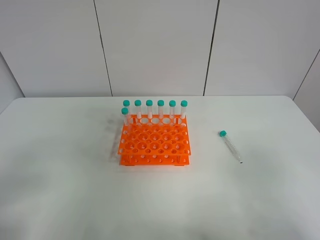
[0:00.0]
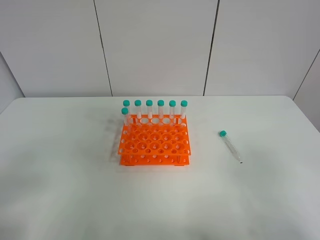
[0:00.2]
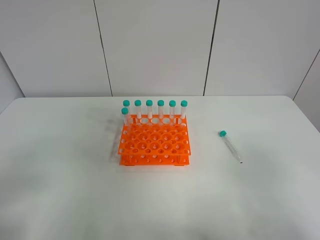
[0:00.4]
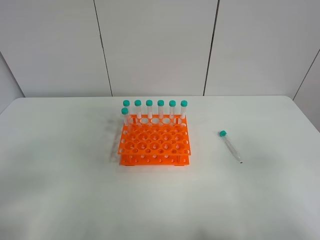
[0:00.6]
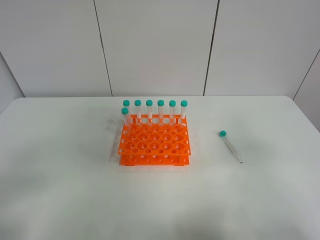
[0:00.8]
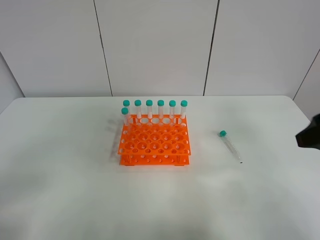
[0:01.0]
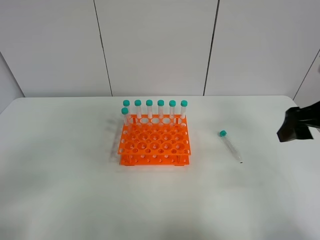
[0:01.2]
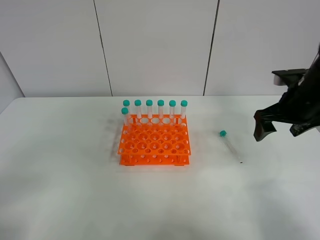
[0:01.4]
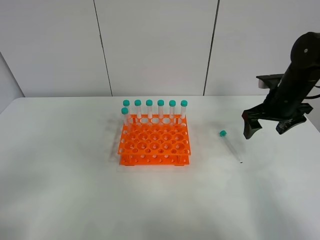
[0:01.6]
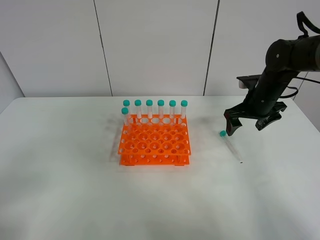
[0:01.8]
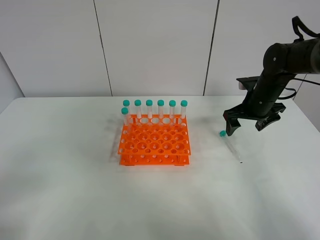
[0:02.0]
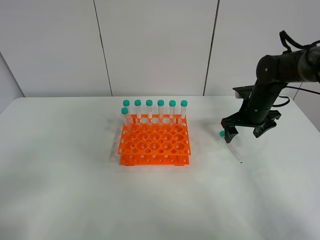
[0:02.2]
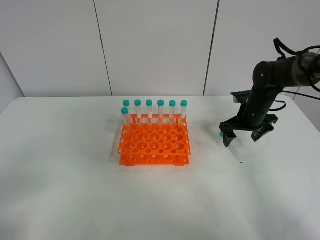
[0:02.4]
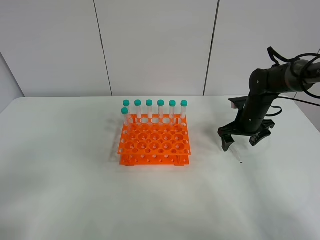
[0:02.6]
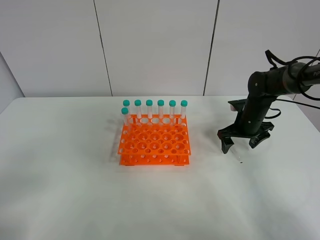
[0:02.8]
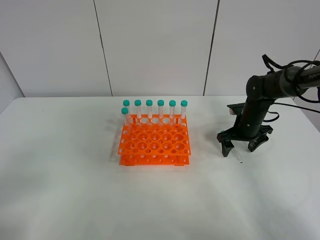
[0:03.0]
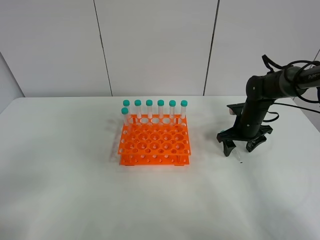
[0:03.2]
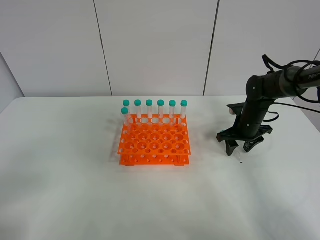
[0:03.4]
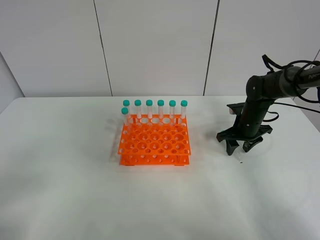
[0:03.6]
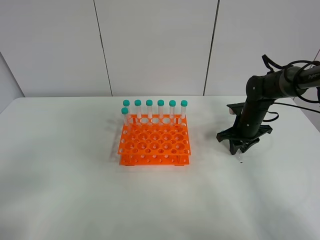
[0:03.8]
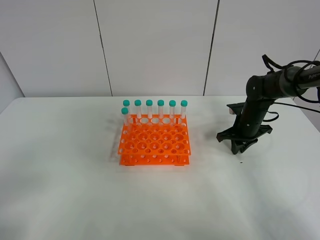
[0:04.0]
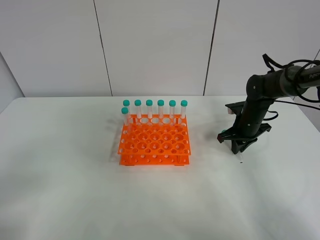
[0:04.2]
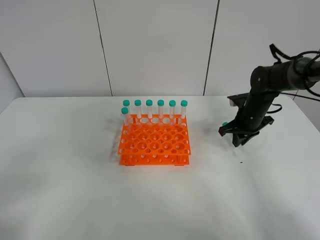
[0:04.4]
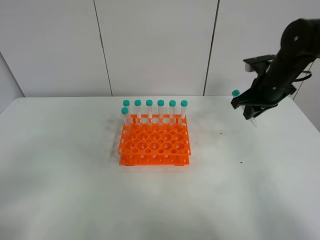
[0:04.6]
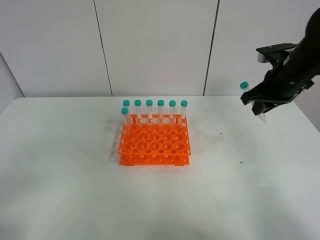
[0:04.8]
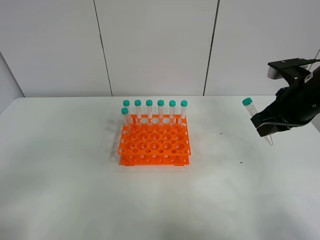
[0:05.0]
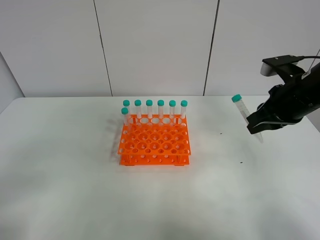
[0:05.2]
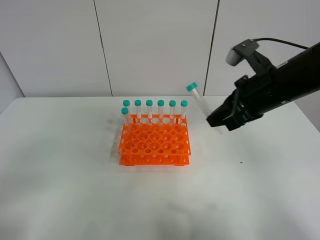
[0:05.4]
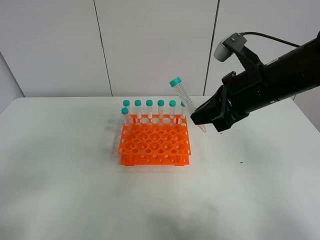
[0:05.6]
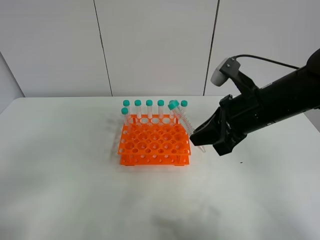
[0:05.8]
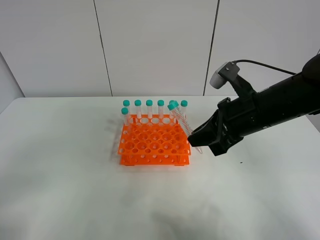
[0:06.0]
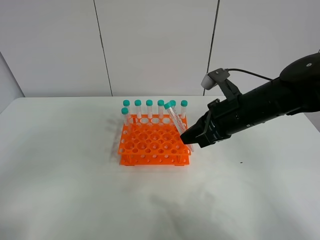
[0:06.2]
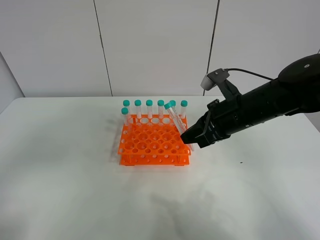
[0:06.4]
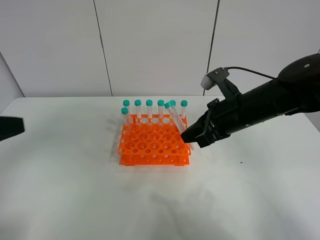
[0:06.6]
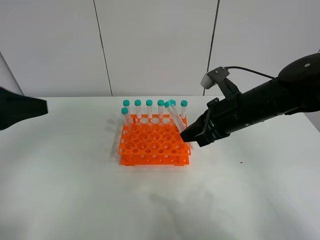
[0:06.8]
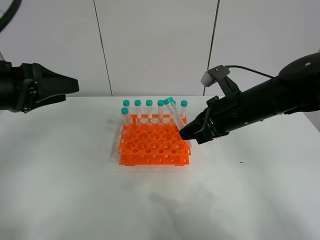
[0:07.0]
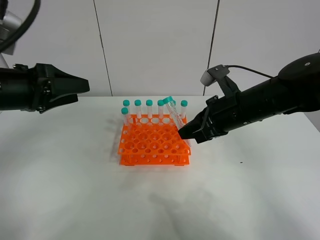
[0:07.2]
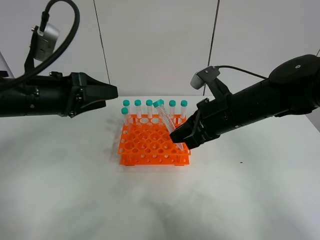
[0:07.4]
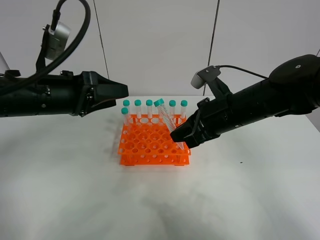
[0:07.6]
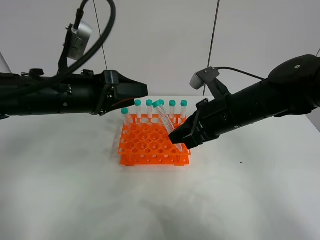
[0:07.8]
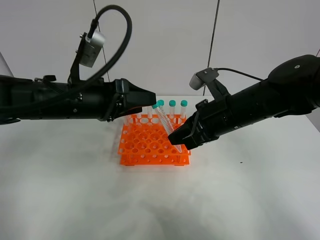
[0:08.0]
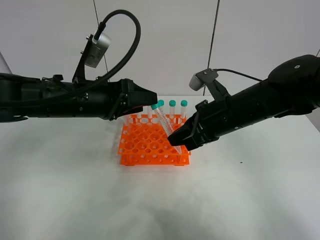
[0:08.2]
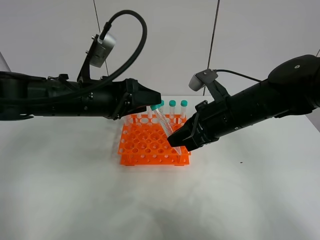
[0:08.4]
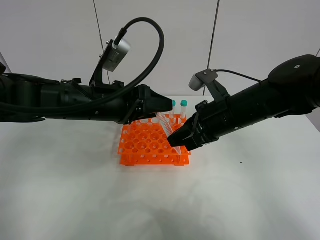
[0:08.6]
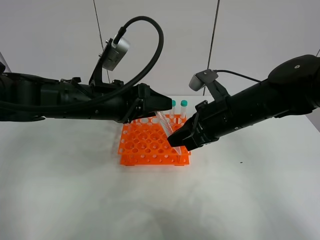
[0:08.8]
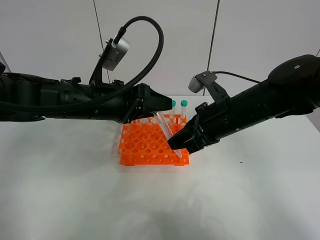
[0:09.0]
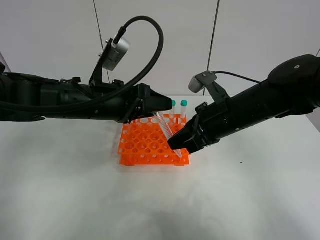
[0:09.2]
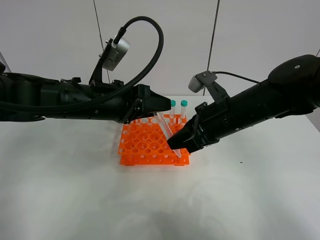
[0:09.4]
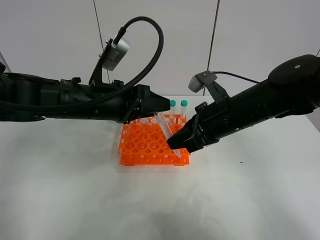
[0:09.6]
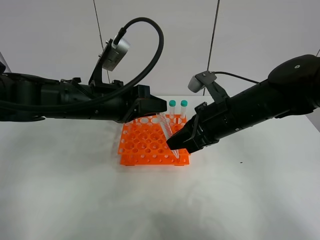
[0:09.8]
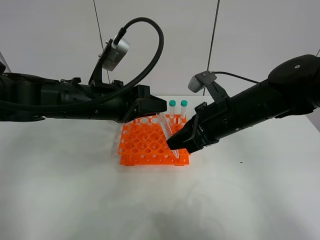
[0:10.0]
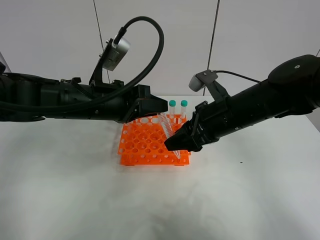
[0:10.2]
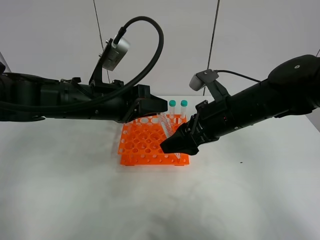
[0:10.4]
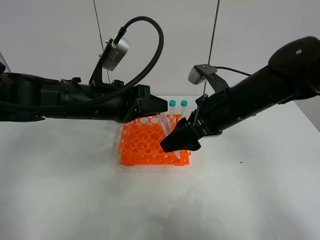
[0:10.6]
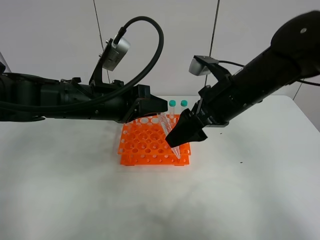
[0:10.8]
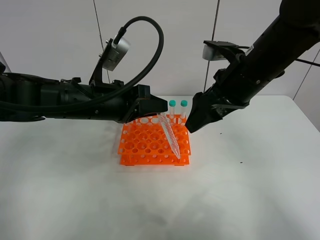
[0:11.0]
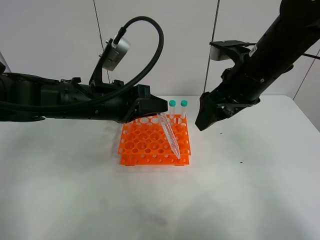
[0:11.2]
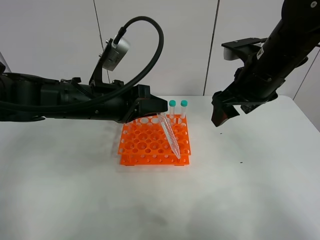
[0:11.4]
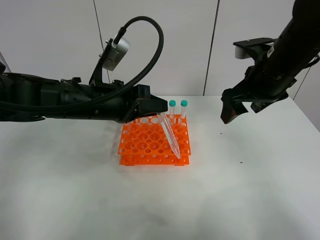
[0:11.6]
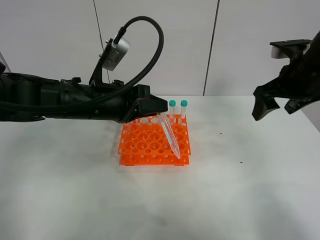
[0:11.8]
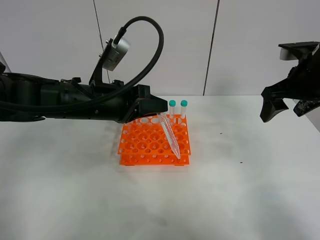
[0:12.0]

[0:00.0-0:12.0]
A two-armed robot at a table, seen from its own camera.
Task of the whole recording: Put the test tube on the table back onto the test tube rack.
Step, 0:00.0 to 0:03.6: Pick up the test tube with the right gripper.
Step, 0:03.8 to 0:09.8: Move the test tube from the right gripper to the left gripper.
0:00.0 to 0:01.6: The right gripper heads forward, covering about 35 cm.
0:01.6 to 0:03.0: The right gripper is displaced downward by approximately 10 cm.
0:03.0 to 0:04.4: The right gripper closes its fingers.
0:04.4 to 0:06.0: The right gripper shifts about 20 cm backward, upward and to the left.
0:06.0 to 0:07.6: The left gripper shifts roughly 30 cm forward and to the right.
0:07.6 to 0:09.0: The left gripper heads to the right, covering approximately 5 cm.
0:09.0 to 0:10.4: The left gripper closes up. The right gripper opens up.
0:10.4 to 0:12.0: The right gripper travels to the right and upward by approximately 15 cm.

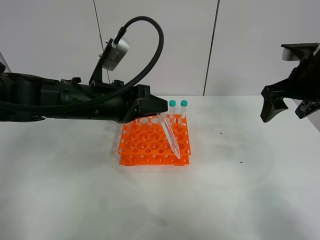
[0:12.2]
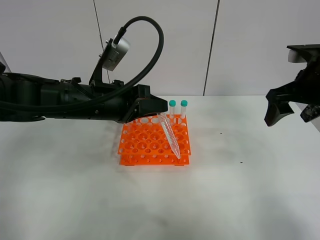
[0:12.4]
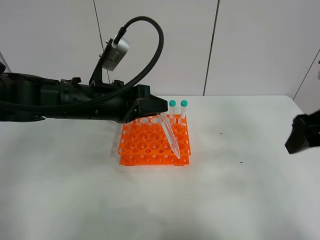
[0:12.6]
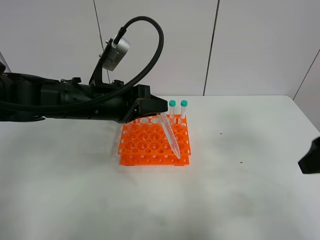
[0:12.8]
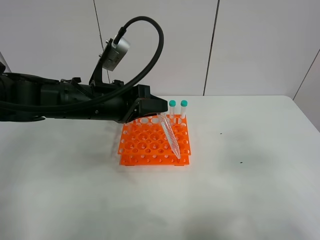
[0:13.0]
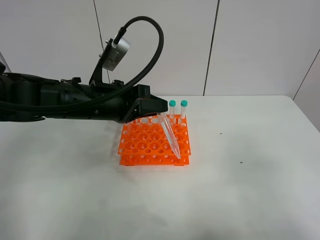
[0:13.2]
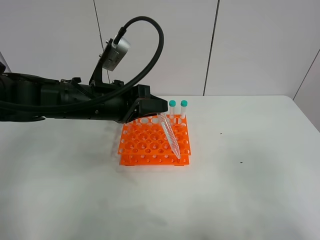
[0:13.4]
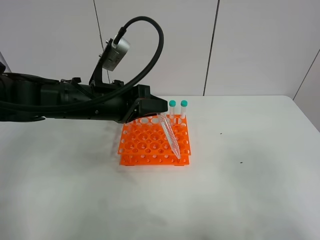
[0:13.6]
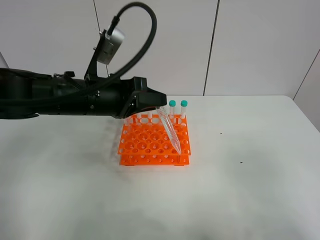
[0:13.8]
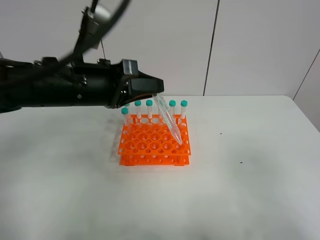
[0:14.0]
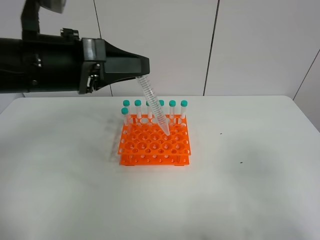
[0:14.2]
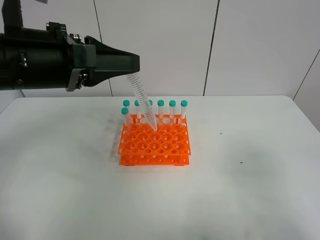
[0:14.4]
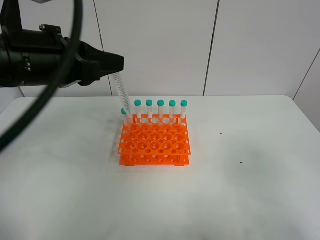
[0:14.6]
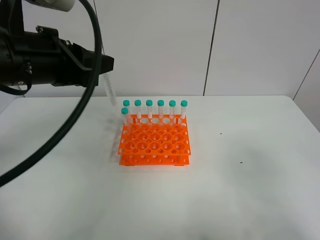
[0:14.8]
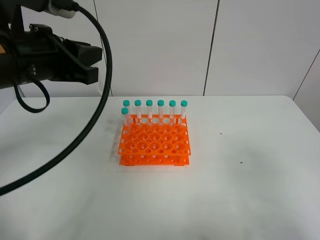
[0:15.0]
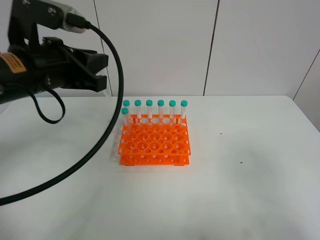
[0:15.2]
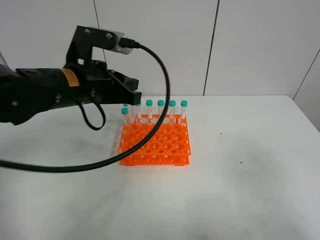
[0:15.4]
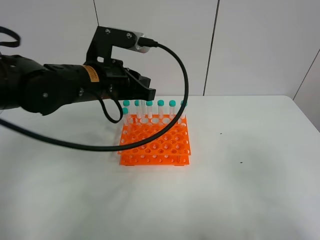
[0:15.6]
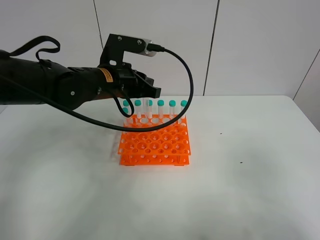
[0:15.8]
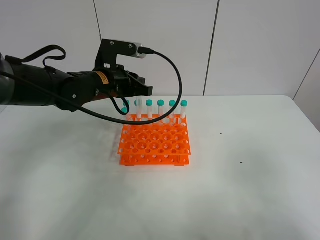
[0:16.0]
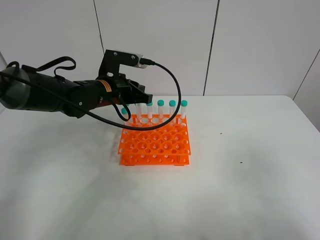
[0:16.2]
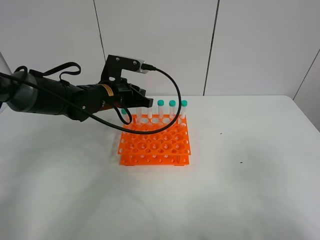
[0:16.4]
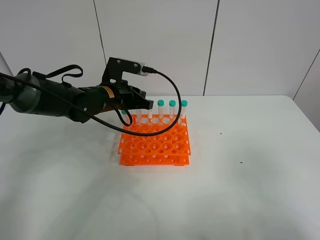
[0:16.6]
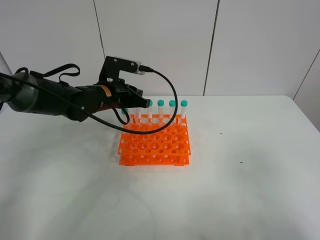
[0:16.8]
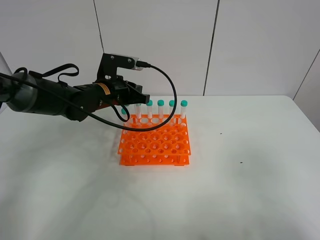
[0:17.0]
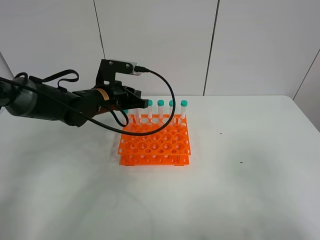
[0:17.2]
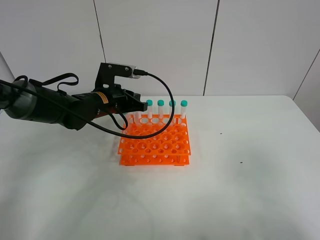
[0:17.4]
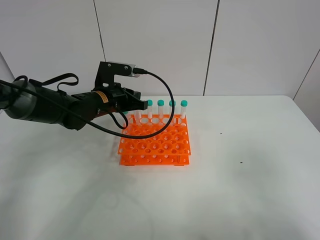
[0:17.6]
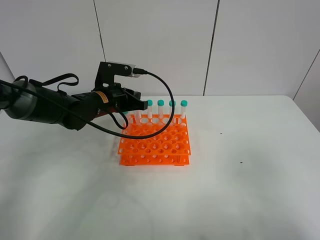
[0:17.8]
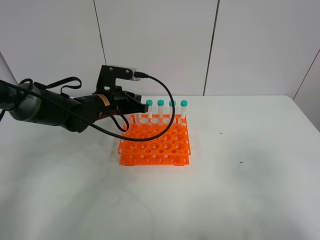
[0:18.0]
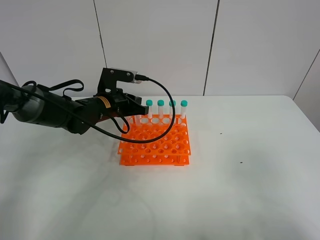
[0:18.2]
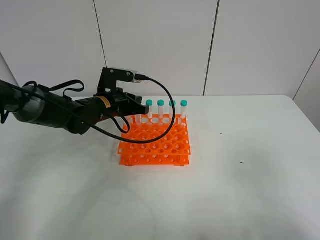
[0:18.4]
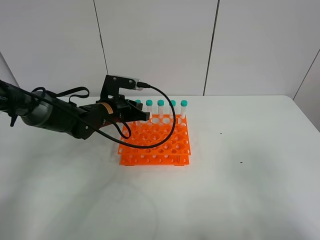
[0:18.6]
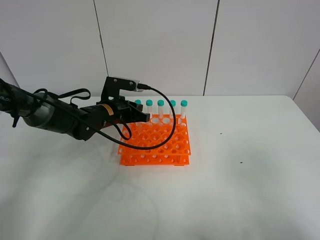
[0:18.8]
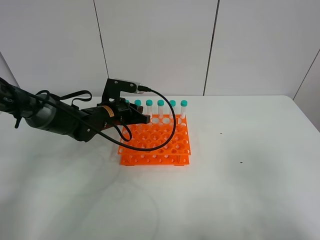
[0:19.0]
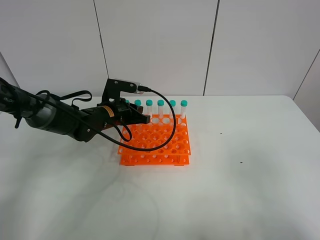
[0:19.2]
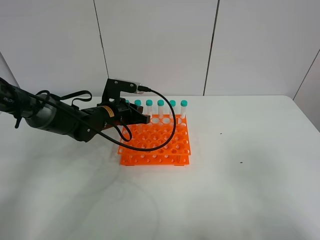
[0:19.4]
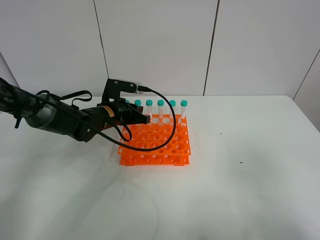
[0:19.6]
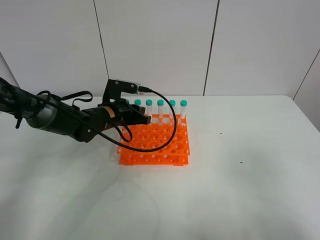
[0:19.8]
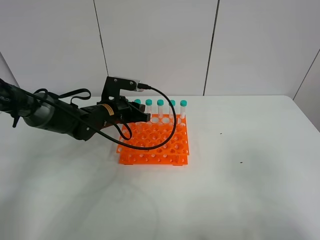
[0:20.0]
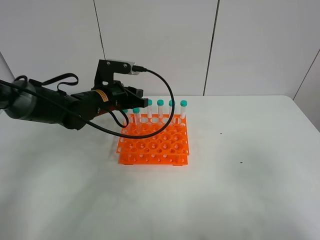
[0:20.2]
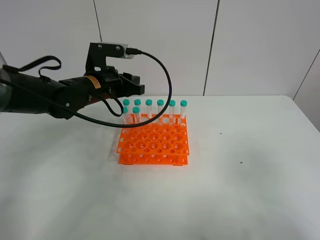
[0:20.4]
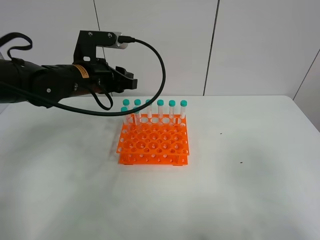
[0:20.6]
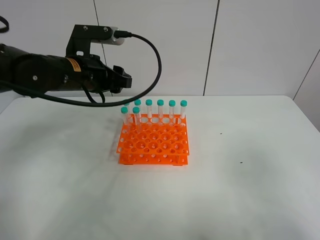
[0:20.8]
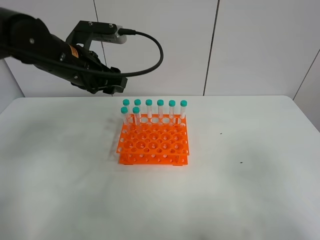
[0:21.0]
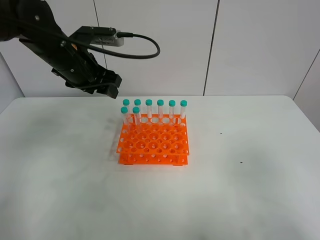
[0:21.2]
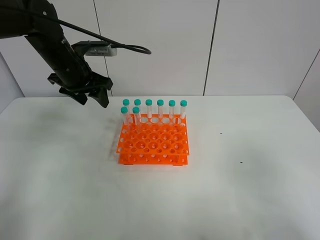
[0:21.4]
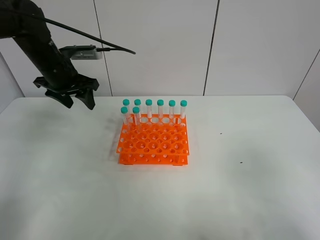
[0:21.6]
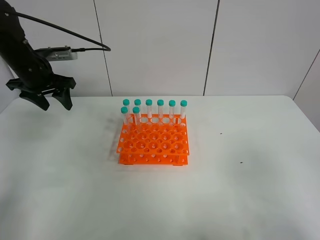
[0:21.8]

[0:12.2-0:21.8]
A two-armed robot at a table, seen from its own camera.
Task of the whole recording: Put the test tube on the table back onto the test tube rack.
Step, 0:12.2 to 0:20.0: Place the test tube on the test tube rack with the left gripper.
0:12.2 to 0:13.8: The right gripper shifts approximately 30 cm backward.
0:13.8 to 0:15.4: The left gripper reaches some 10 cm upward, then returns.
0:15.4 to 0:17.0: The left gripper is displaced forward and downward by about 15 cm.
0:17.0 to 0:18.6: The grippers make only small movements.
0:18.6 to 0:20.2: The left gripper heads upward, covering roughly 5 cm, and opens up.
0:20.2 to 0:21.8: The left gripper travels to the left by some 15 cm, and opens.
